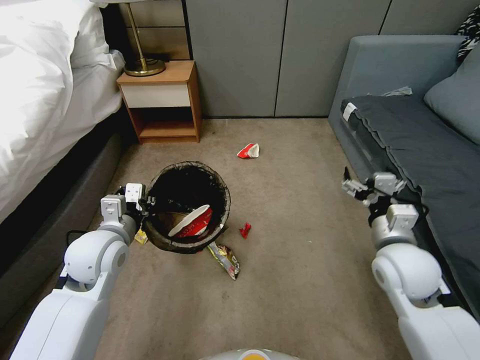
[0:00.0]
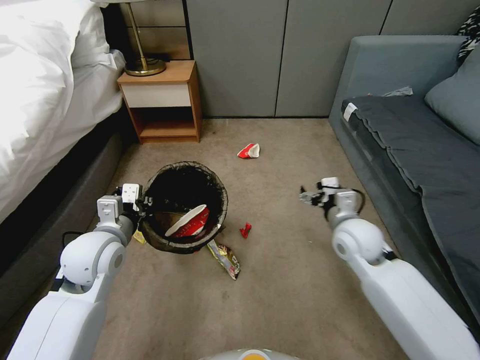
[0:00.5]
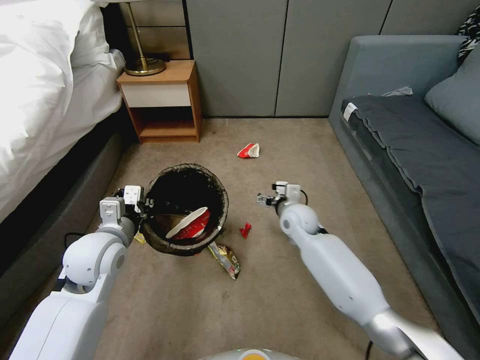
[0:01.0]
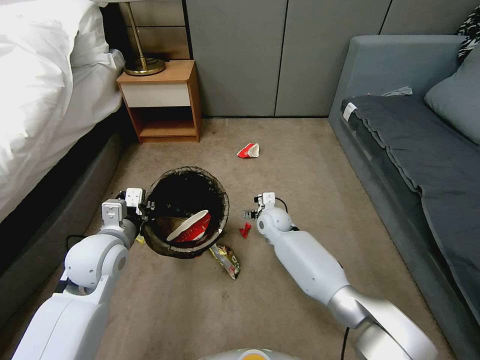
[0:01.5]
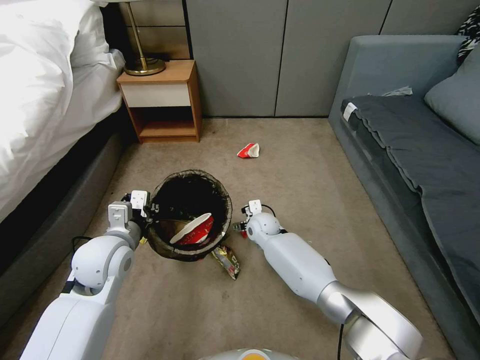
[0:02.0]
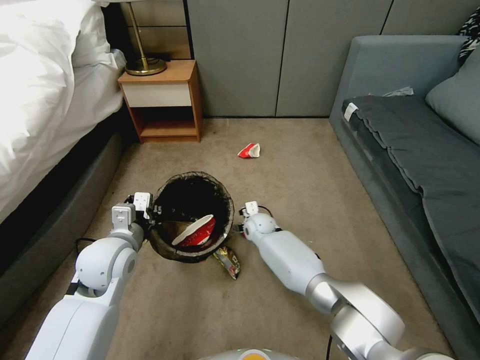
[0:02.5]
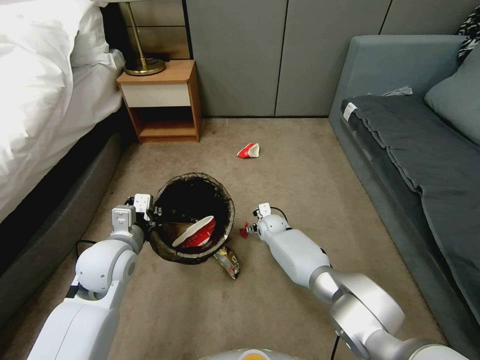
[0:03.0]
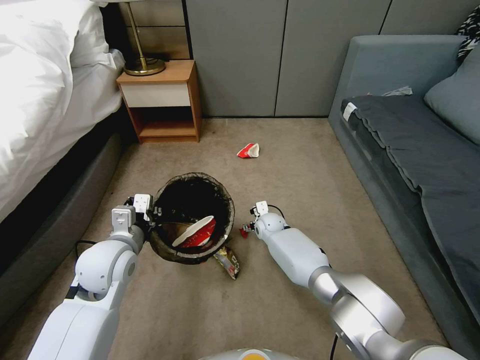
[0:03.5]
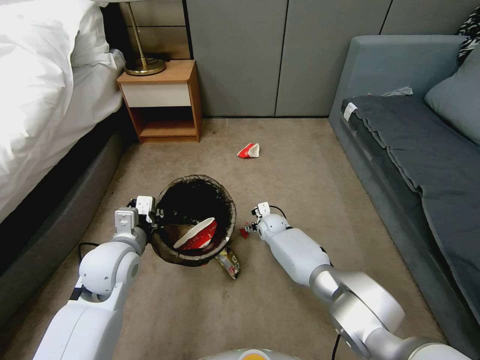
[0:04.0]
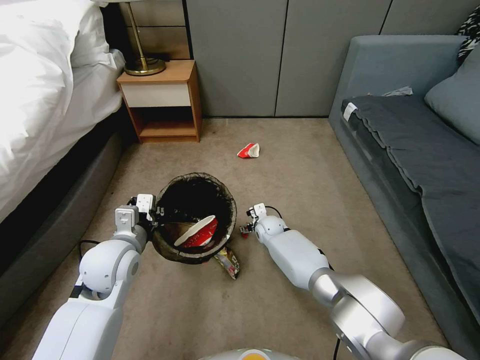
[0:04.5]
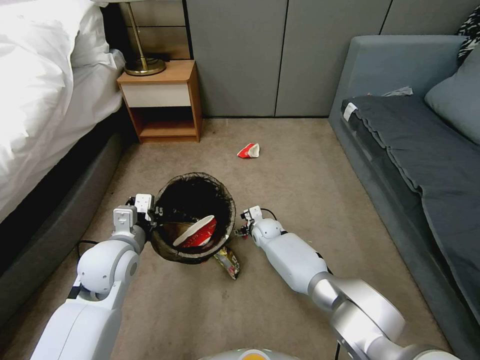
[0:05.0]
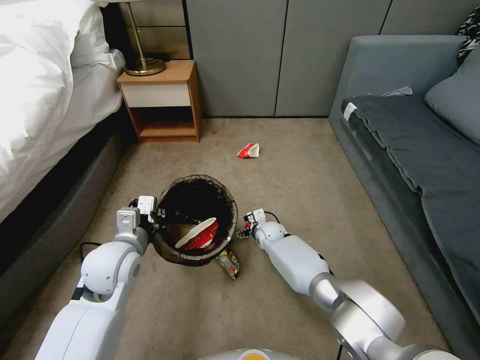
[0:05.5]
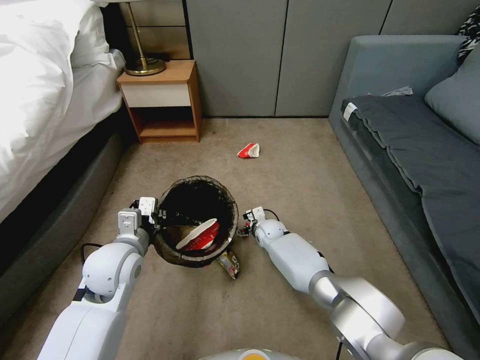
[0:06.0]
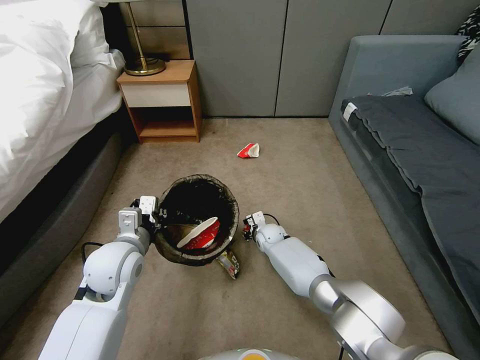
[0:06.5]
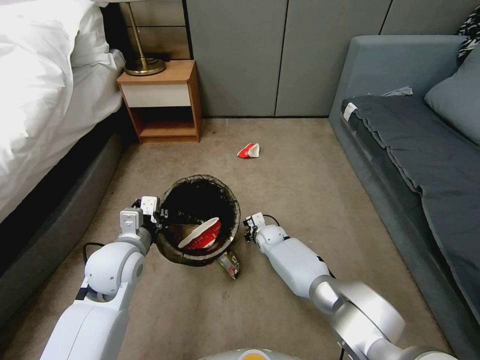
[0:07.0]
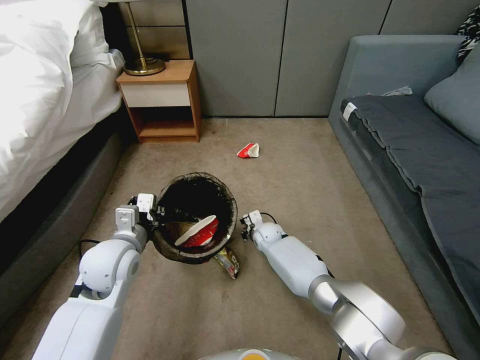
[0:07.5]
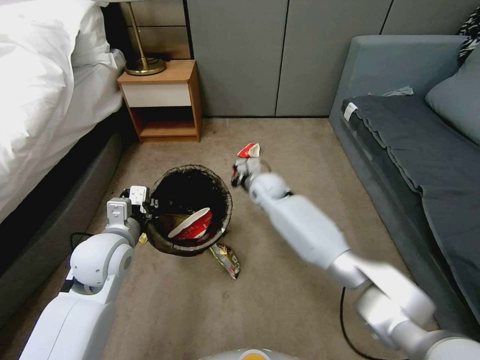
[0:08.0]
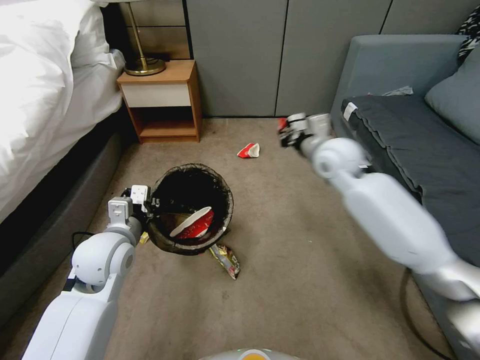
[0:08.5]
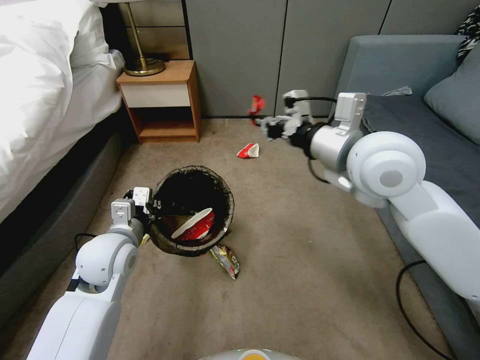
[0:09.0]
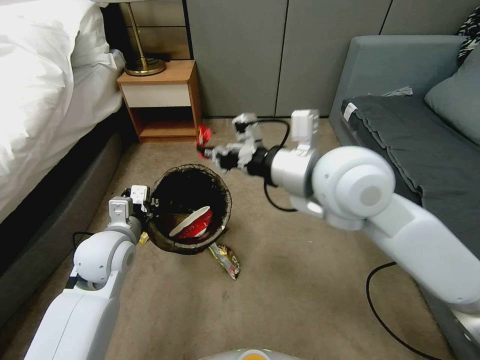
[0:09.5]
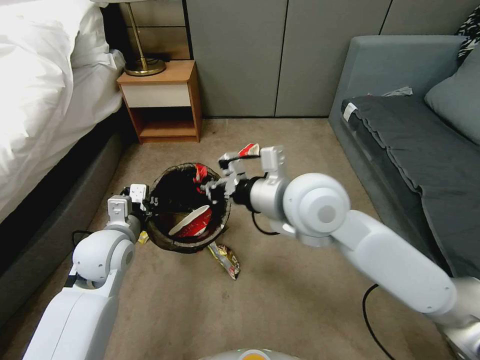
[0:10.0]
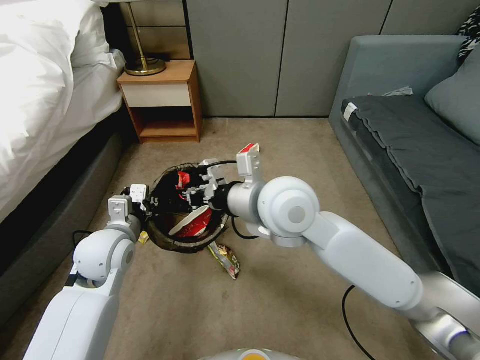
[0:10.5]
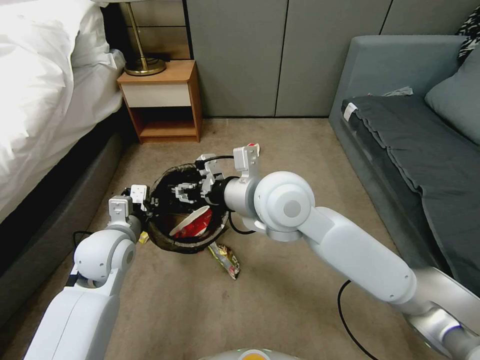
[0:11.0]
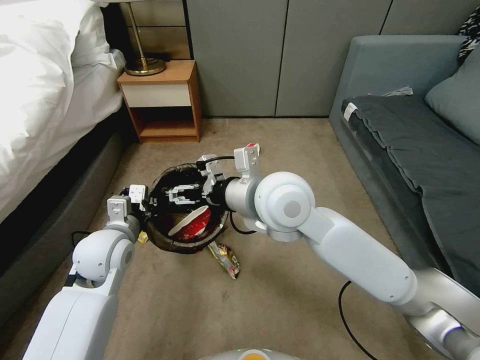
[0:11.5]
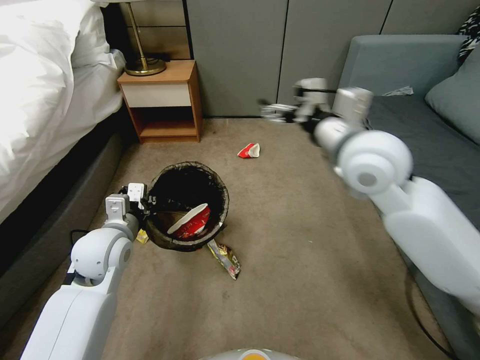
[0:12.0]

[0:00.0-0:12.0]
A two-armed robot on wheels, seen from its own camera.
Task of the whole recording: Pick up the trash bin, then pick up the garbage from the floor and place it into the trash bin.
0:00.0 to 0:02.0: The right gripper moves to the left, forward and downward, roughly 35 cm.
0:02.0 to 0:04.0: The right gripper goes about 5 cm downward.
0:04.0 to 0:06.0: The grippers move only a little.
0:06.0 to 0:08.0: The right gripper is displaced upward by about 20 cm, and closes up.
0:08.0 to 0:10.0: The right gripper shifts about 30 cm upward and backward.
0:10.0 to 0:12.0: The right gripper shifts approximately 10 cm to the right, and opens up.

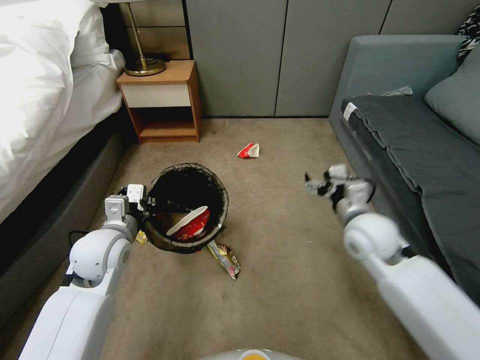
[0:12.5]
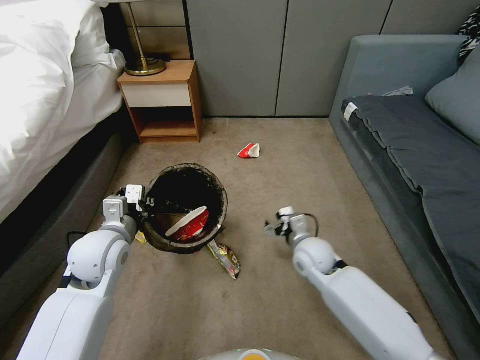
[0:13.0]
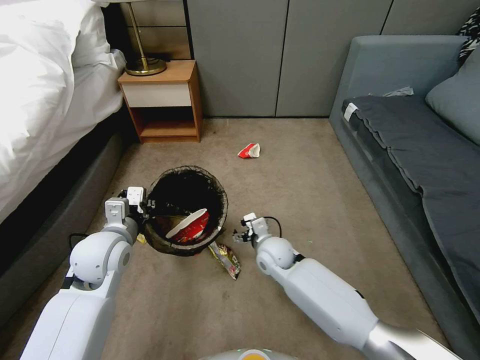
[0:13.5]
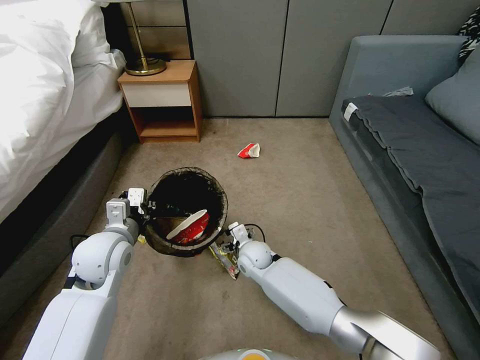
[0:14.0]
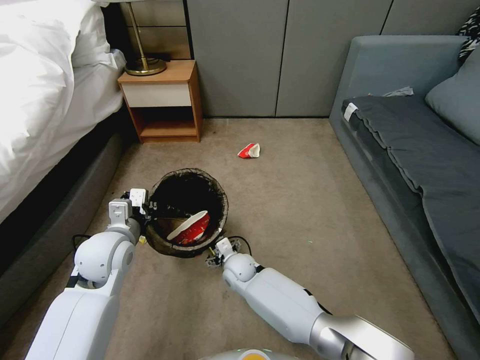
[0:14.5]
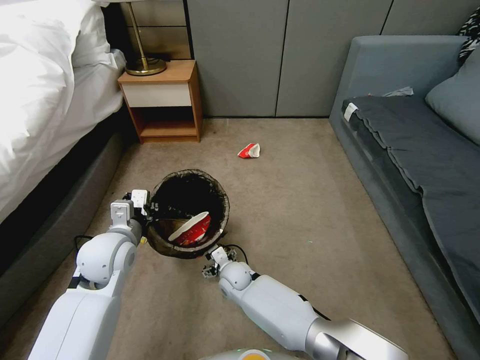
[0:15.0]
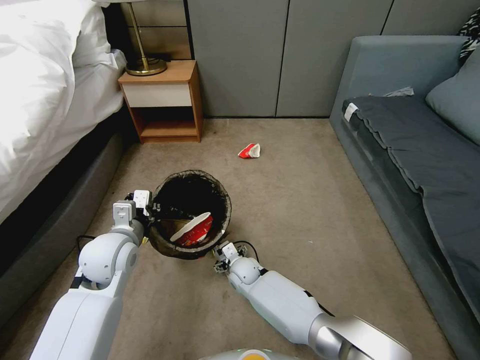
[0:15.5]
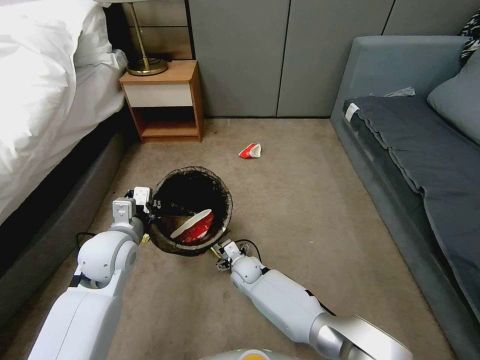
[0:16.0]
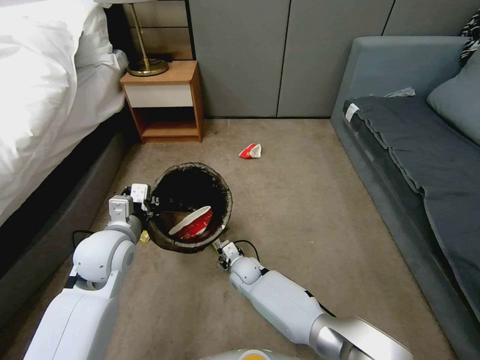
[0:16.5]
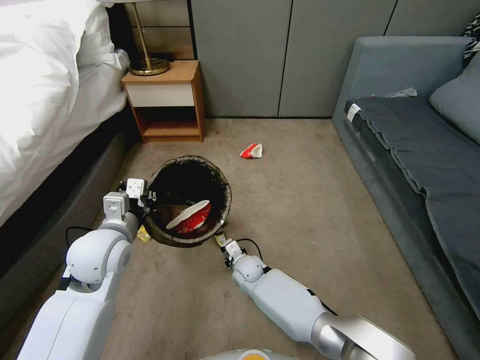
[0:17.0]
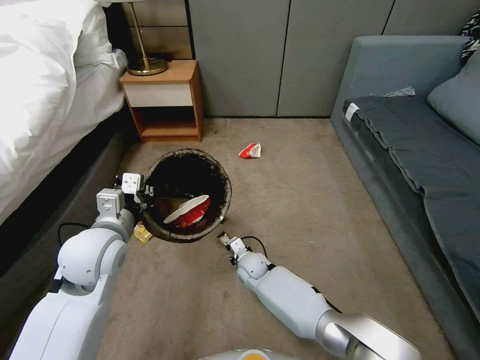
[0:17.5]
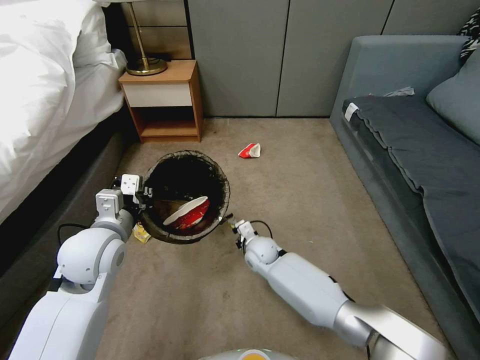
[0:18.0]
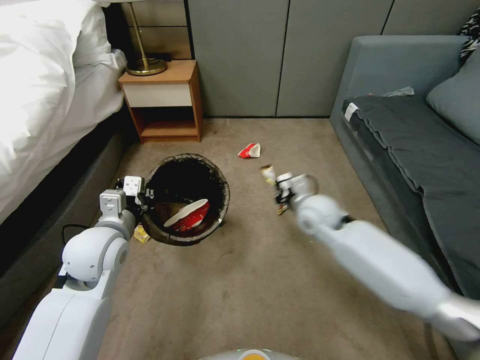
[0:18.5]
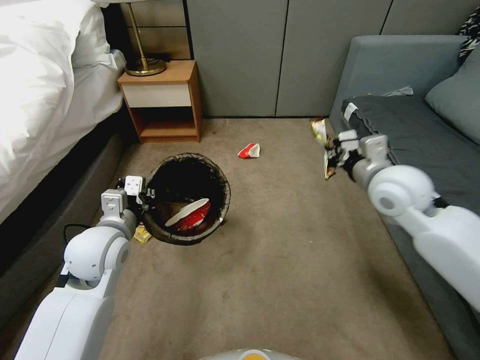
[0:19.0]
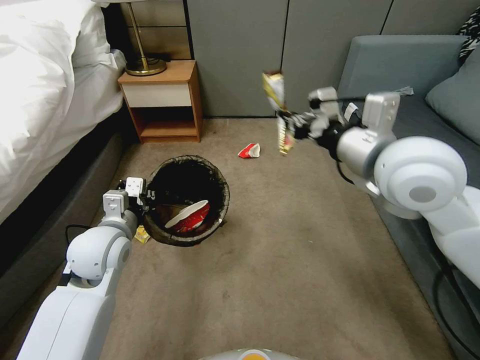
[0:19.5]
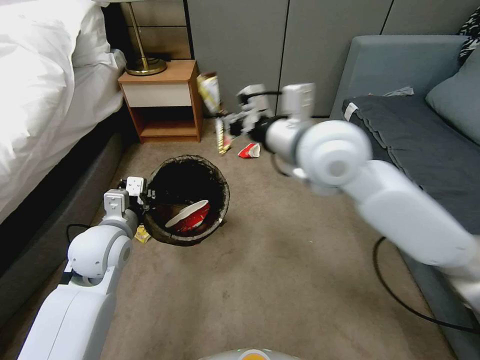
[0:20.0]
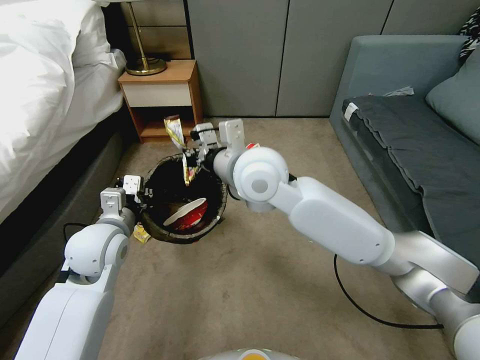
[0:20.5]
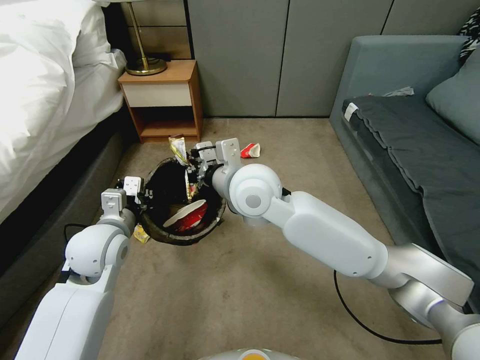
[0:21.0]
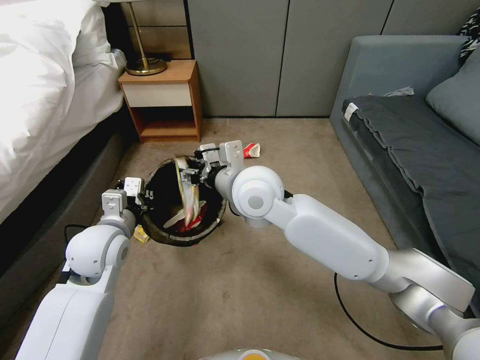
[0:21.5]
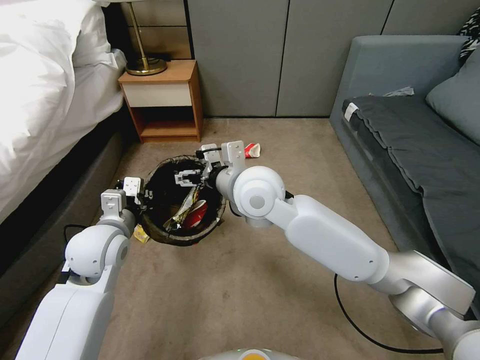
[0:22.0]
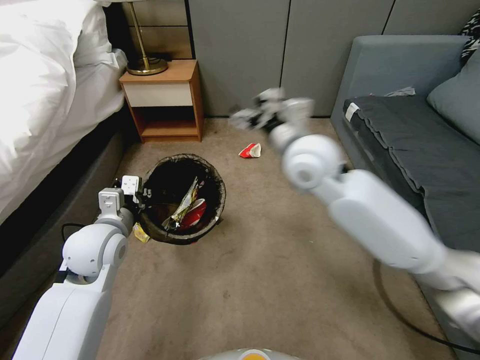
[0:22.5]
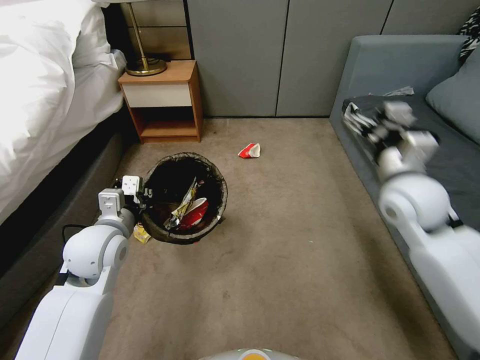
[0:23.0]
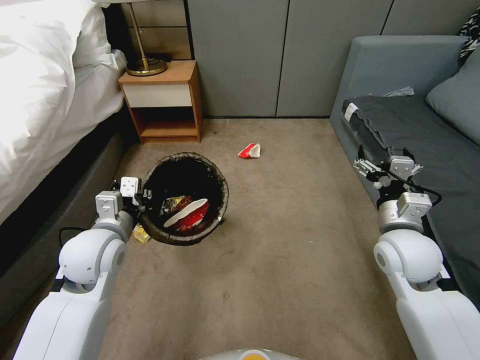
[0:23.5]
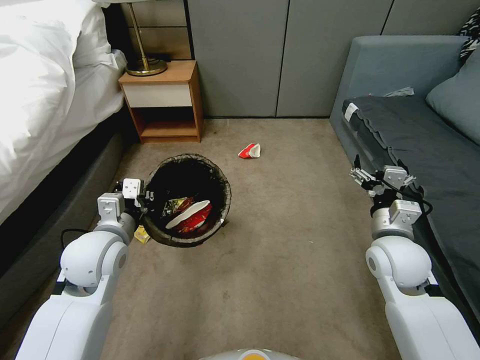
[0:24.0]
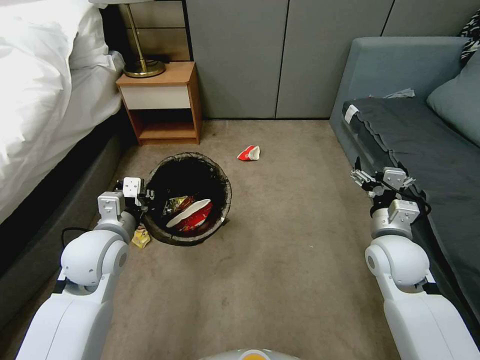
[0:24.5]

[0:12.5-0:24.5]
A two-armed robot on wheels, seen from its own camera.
Task of the whole recording: Pick up the trash bin, then pick up the garbage from the floor and place it into the trash bin.
0:12.5 to 0:14.5: The right gripper shifts about 35 cm to the left and downward.
0:14.5 to 0:16.5: The right gripper closes.
0:16.5 to 0:18.5: The right gripper is displaced upward and to the right by some 30 cm, and closes its fingers.
0:18.5 to 0:20.5: The right gripper moves upward and to the left, some 25 cm.
0:20.5 to 0:22.5: The right gripper travels to the right by roughly 5 cm, and opens its fingers.
0:22.5 to 0:24.5: The right gripper shifts approximately 30 cm to the right, downward and backward.

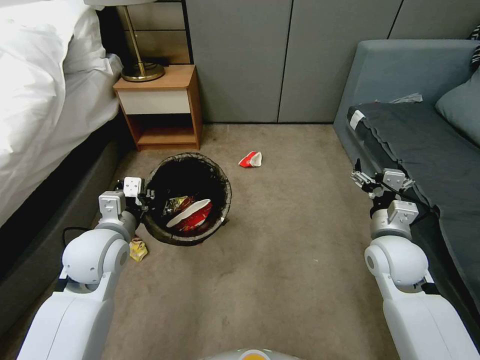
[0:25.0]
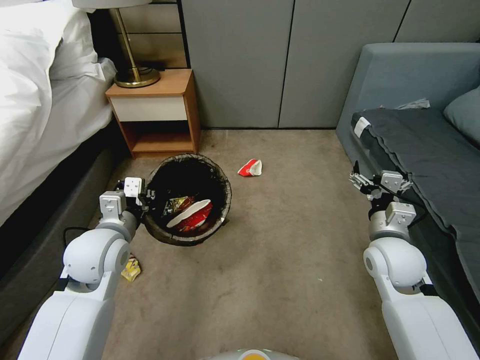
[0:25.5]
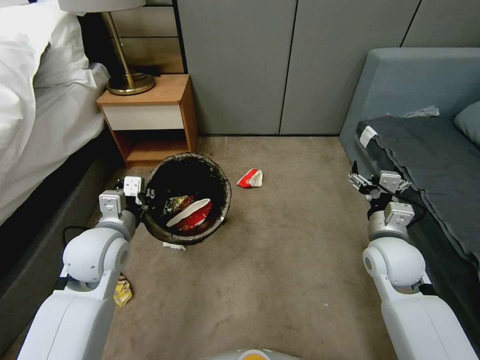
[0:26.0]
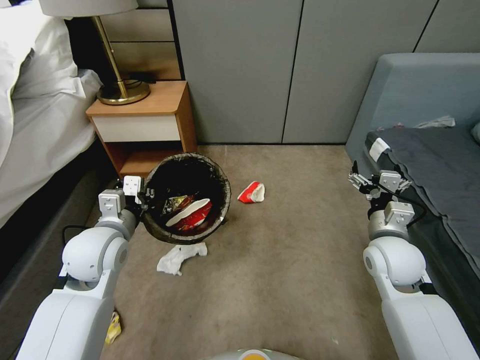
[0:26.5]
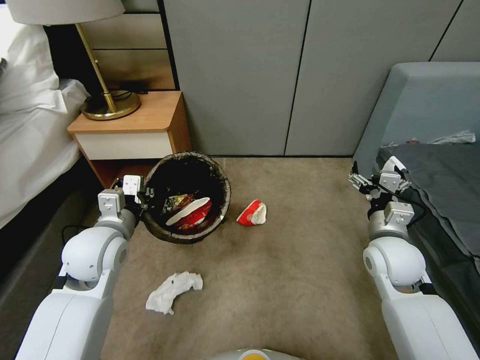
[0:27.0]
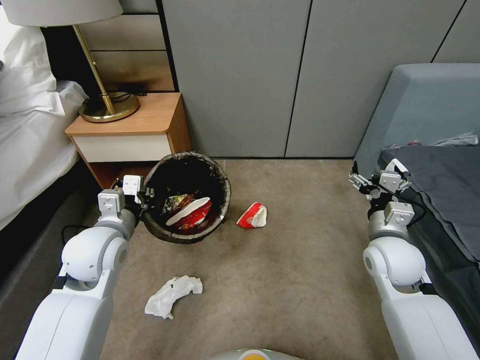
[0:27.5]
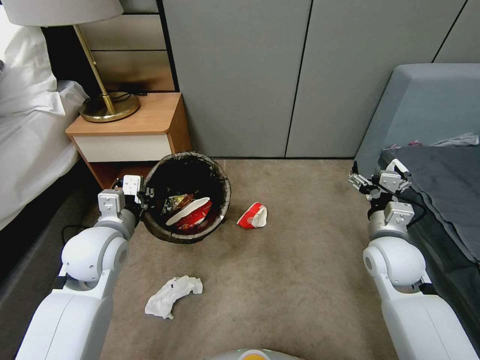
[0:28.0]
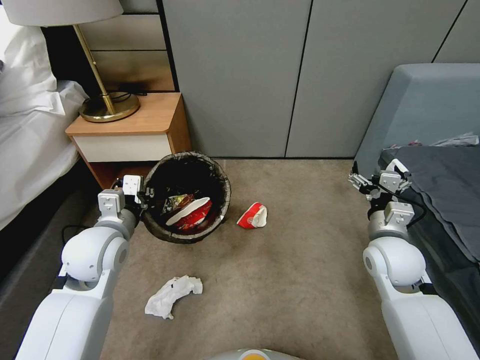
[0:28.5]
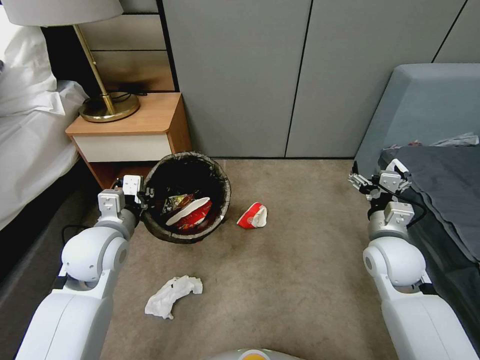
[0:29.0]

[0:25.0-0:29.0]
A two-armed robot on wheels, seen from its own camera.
Task of the whole recording: Pick up the trash bin, then pick up the garbage from the floor and place it into the trash bin.
0:27.0 to 0:29.0: Both grippers stay about where they are.
